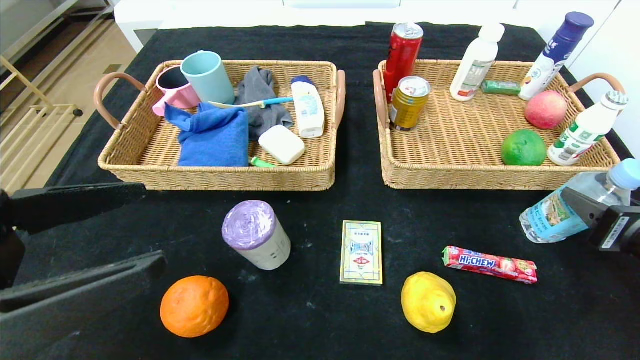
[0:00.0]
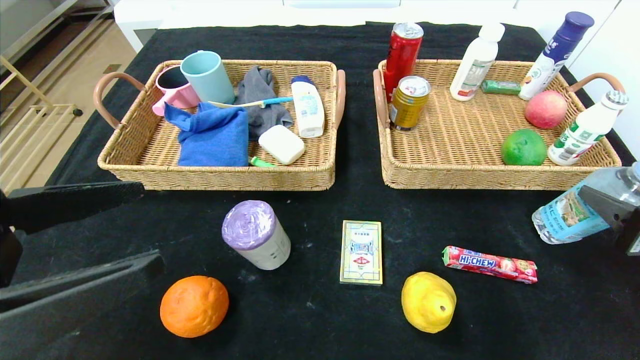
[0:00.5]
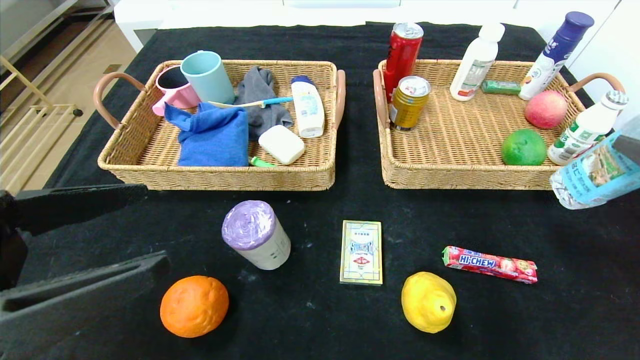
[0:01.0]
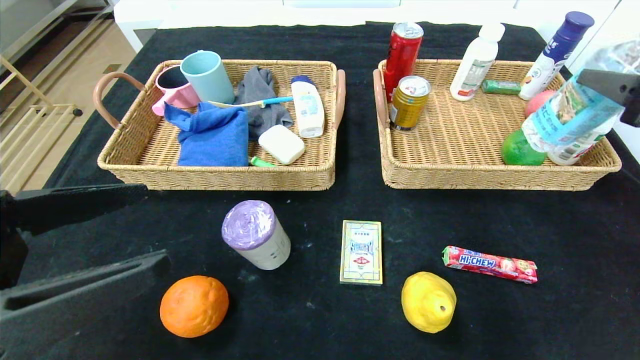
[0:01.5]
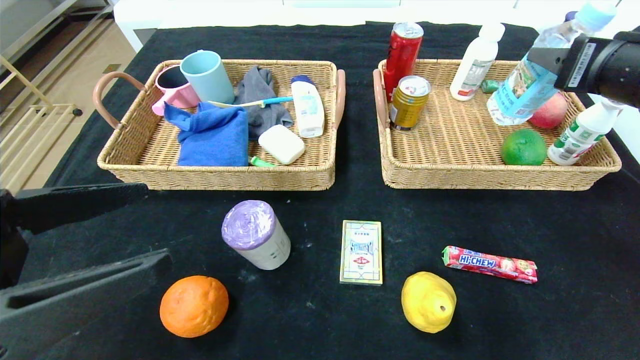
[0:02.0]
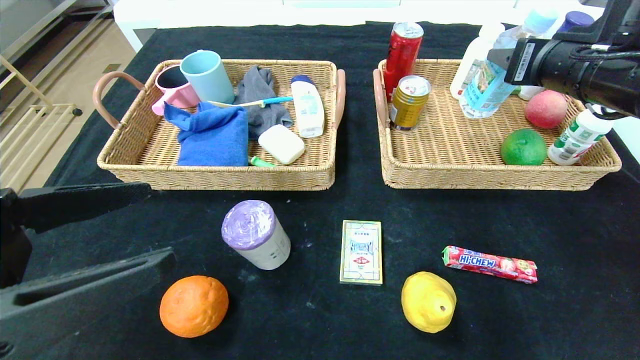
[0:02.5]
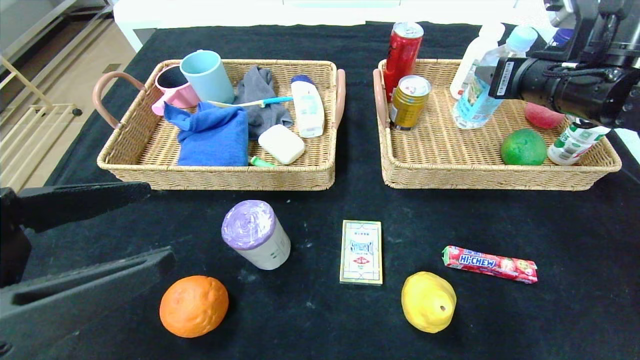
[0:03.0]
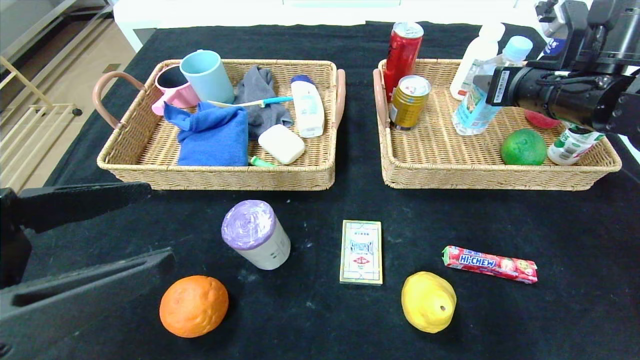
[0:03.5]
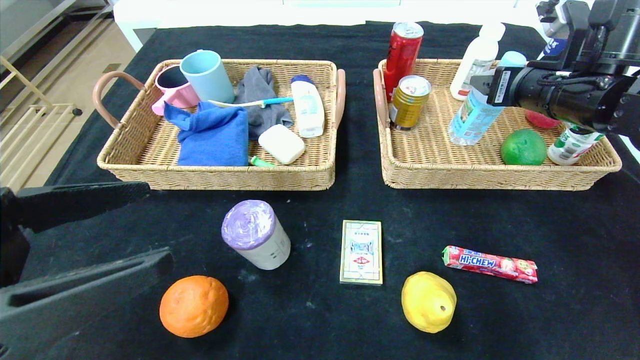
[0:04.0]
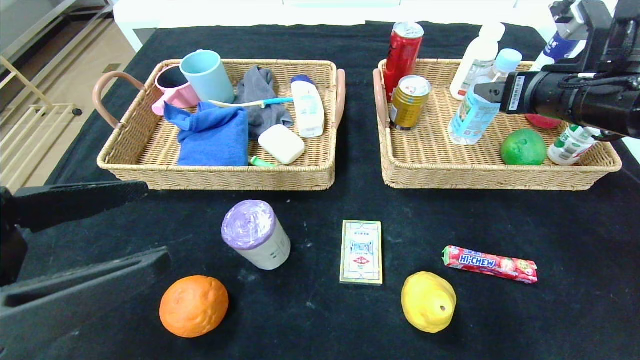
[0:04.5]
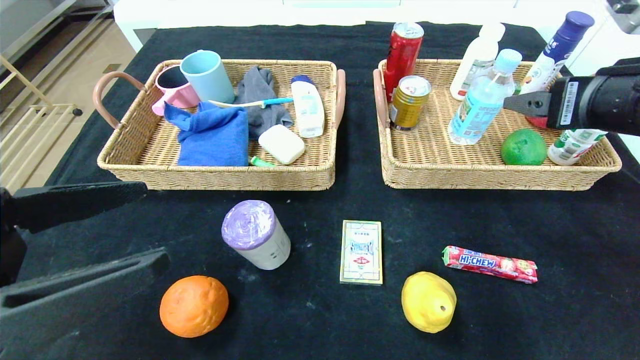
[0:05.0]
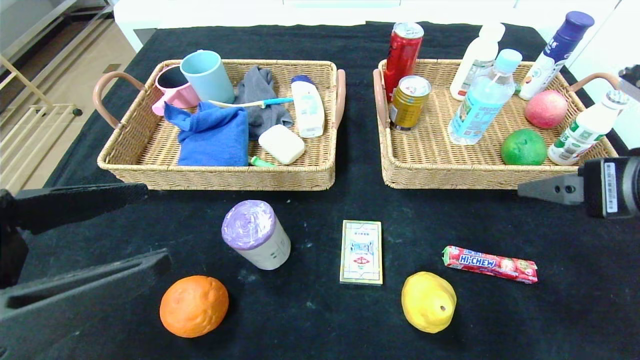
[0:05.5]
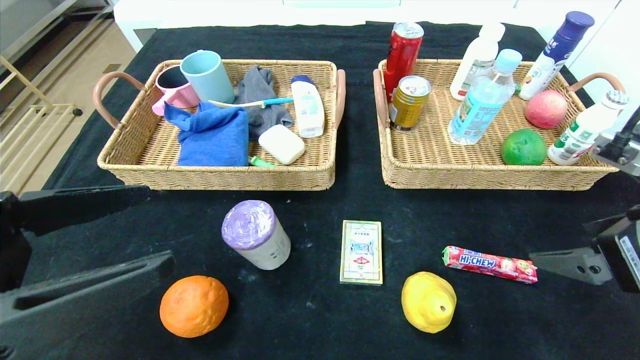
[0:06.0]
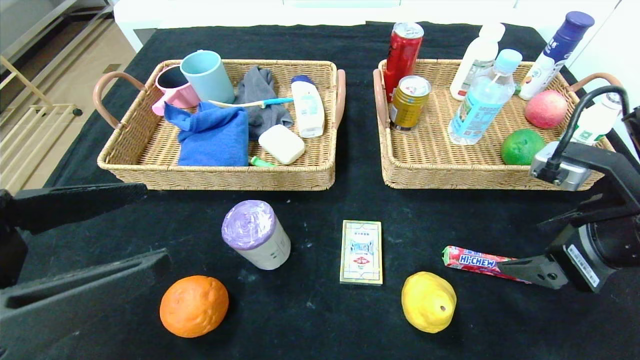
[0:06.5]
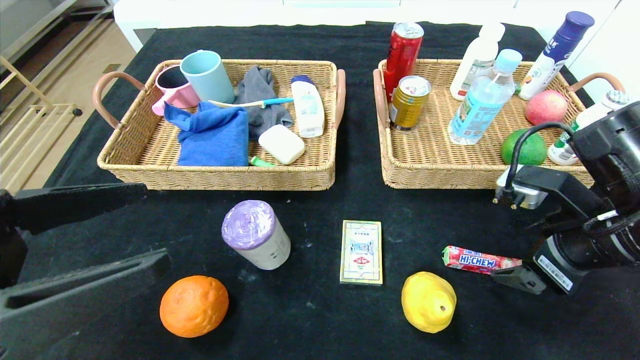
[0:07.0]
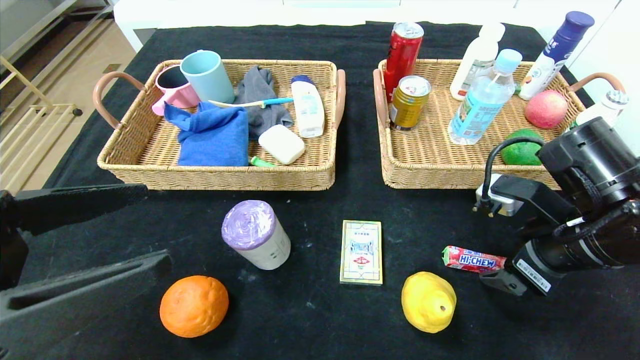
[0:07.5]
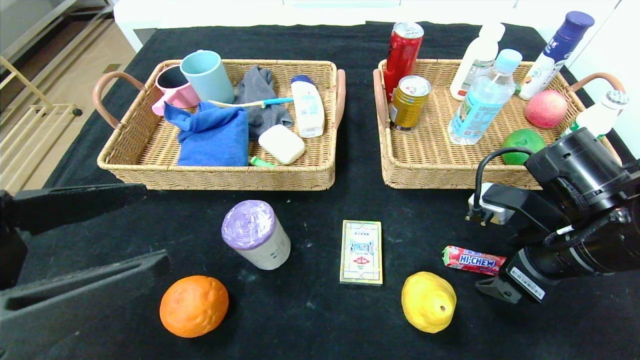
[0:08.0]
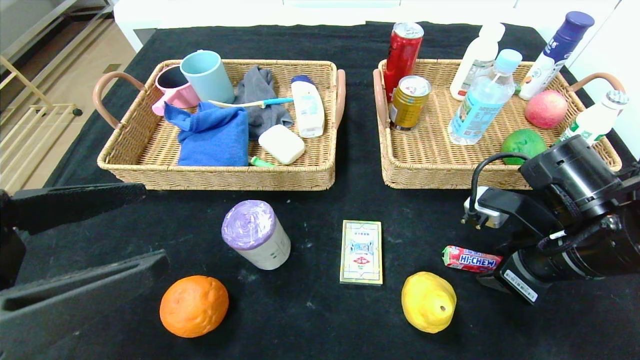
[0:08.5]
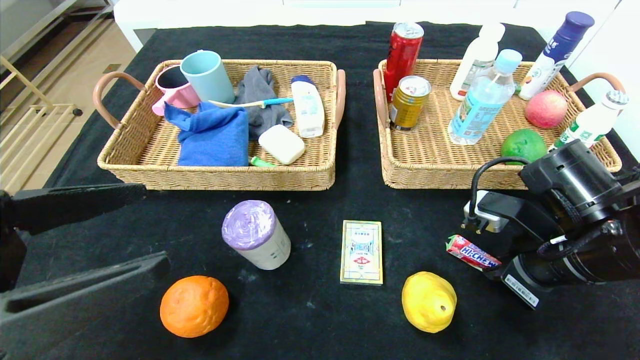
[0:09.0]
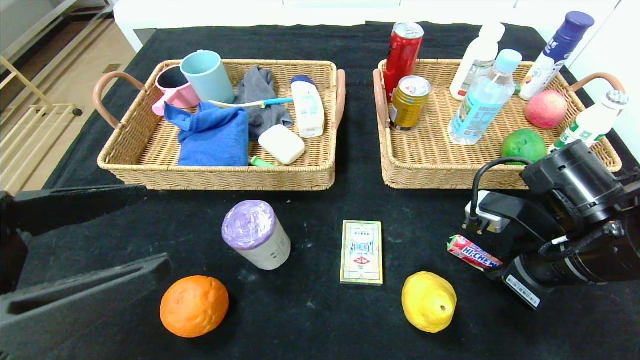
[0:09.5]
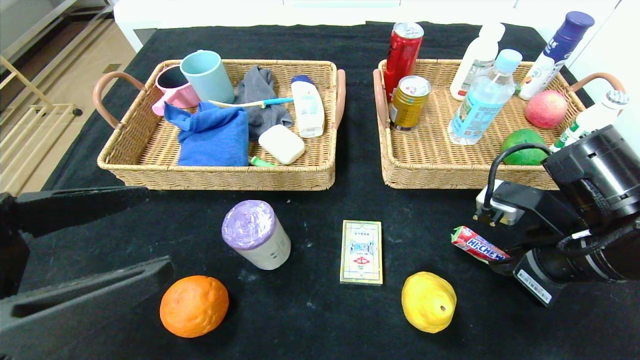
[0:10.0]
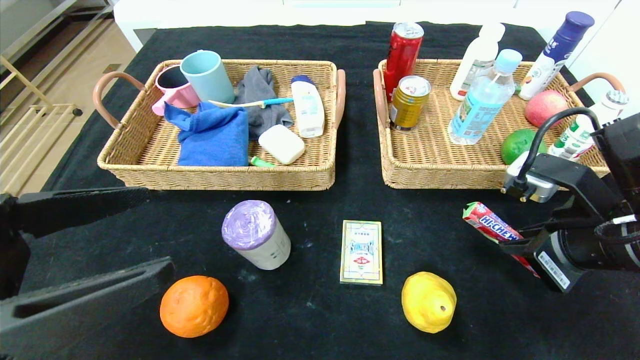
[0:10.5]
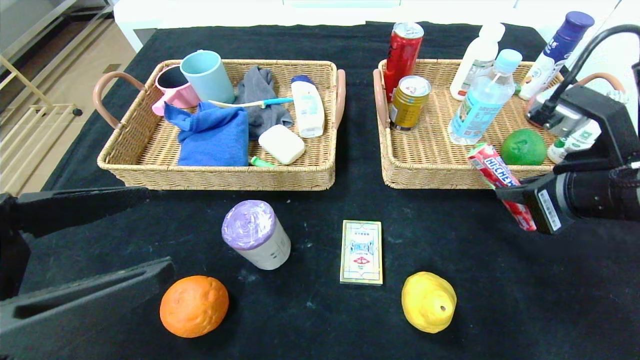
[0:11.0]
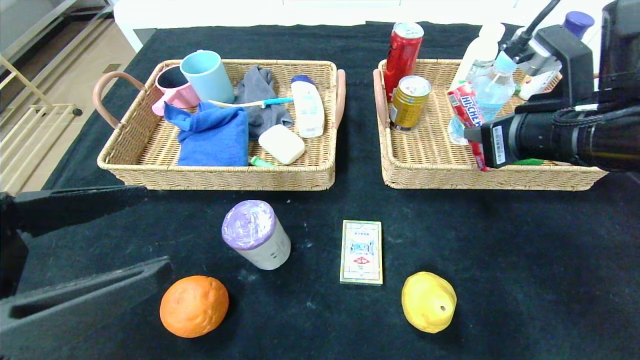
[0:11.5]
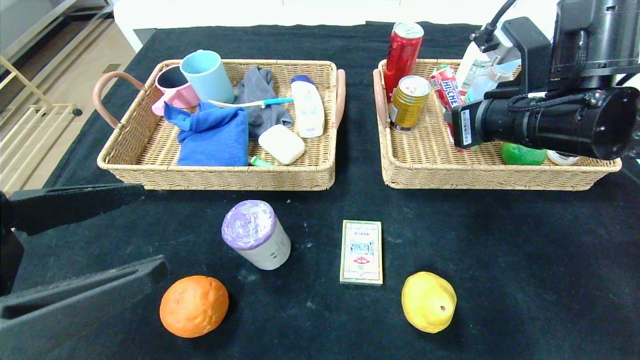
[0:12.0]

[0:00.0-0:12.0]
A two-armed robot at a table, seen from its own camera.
Step, 0:00.0 to 0:04.0: Grasp the soda water and put it in the right basket.
0:00.0 to 0:02.0: The right gripper is displaced upward and forward by approximately 15 cm.
0:02.0 to 0:04.0: The right gripper is displaced forward by some 10 cm.
0:04.0 to 0:06.0: The right gripper is displaced backward by some 20 cm.
0:06.0 to 0:08.0: The right gripper shifts roughly 10 cm forward and downward.
0:08.0 to 0:10.0: The right gripper closes.
0:10.0 to 0:12.0: The right gripper shifts approximately 10 cm upward and forward.

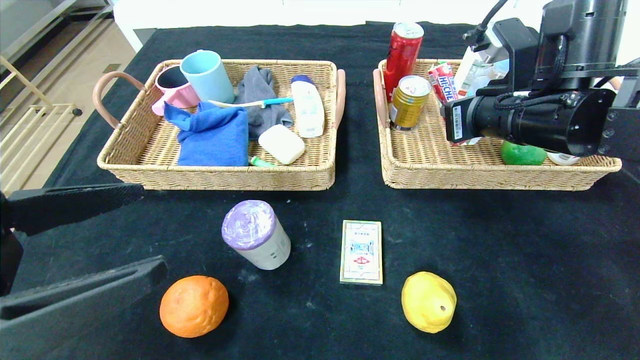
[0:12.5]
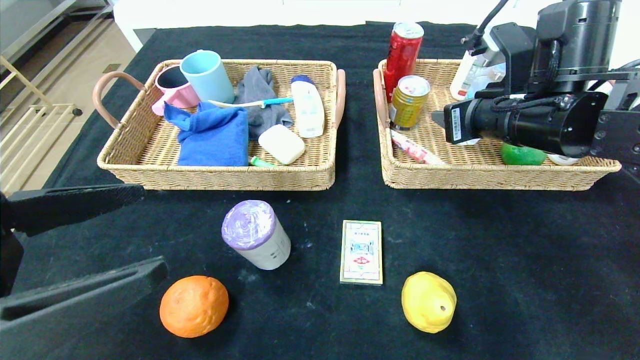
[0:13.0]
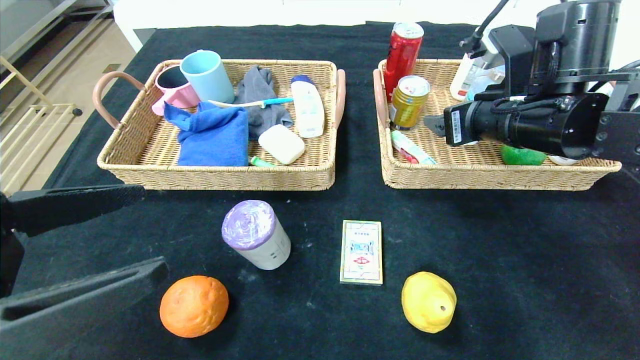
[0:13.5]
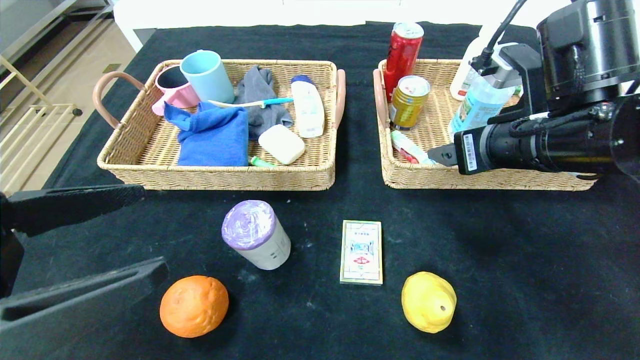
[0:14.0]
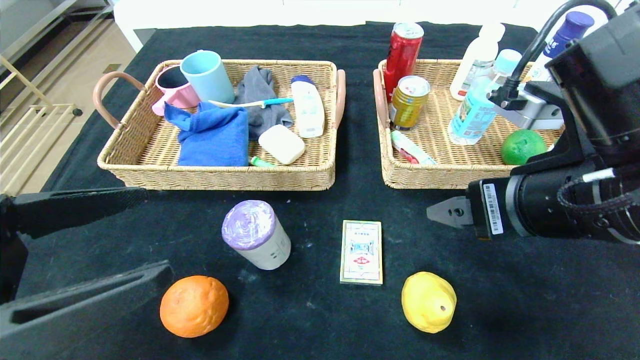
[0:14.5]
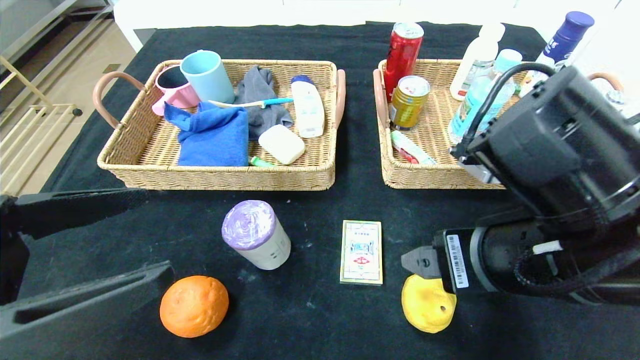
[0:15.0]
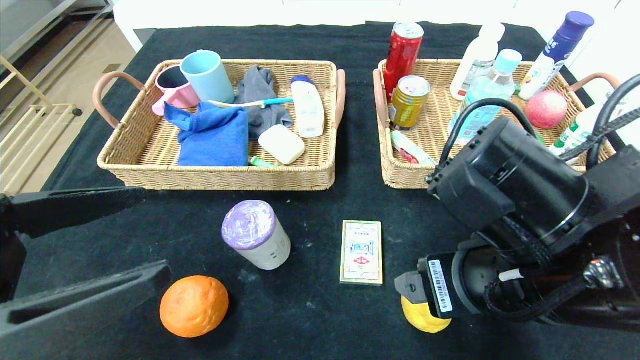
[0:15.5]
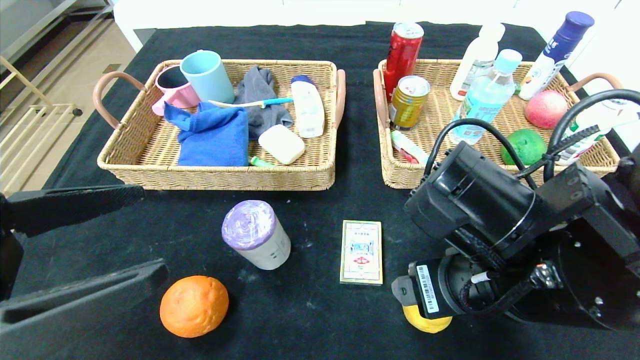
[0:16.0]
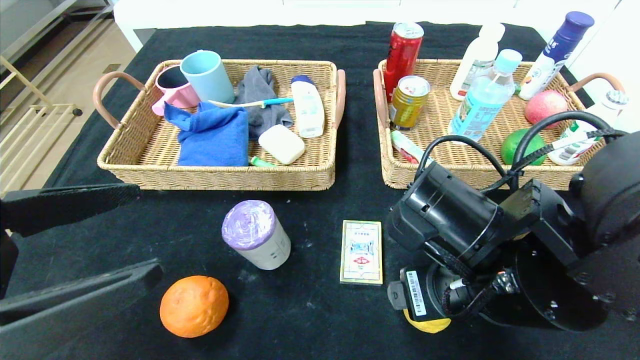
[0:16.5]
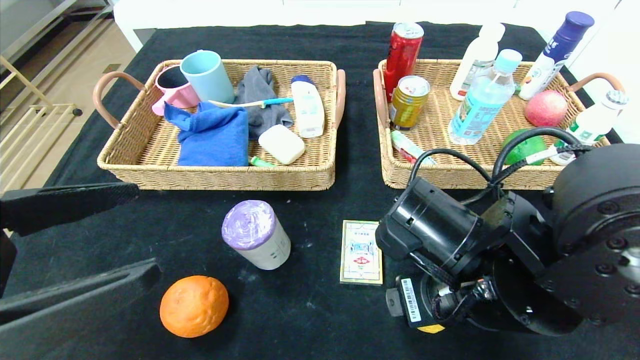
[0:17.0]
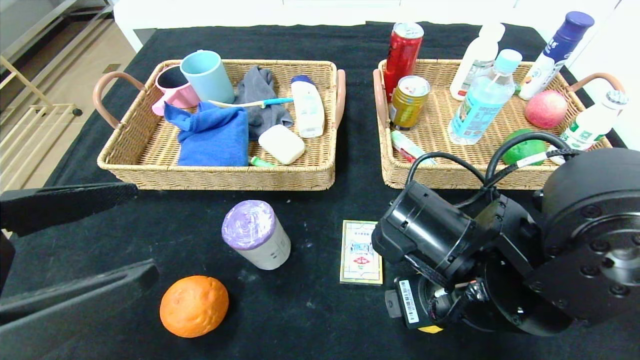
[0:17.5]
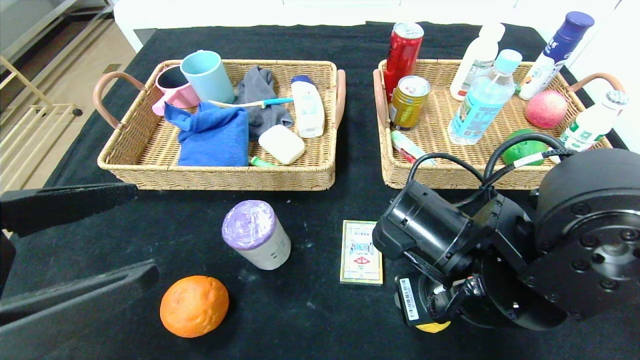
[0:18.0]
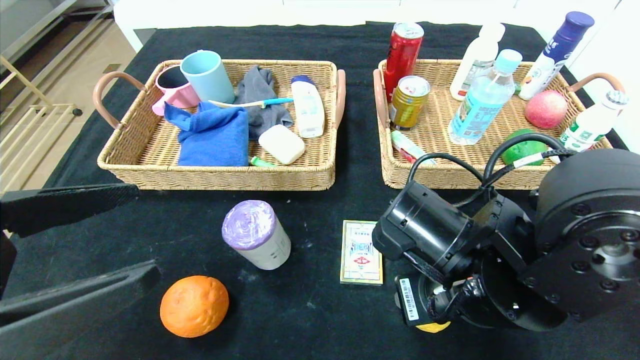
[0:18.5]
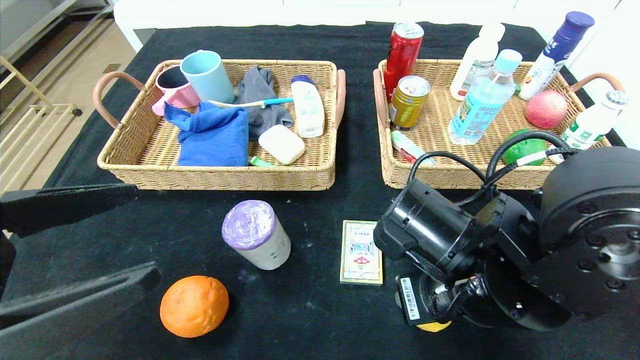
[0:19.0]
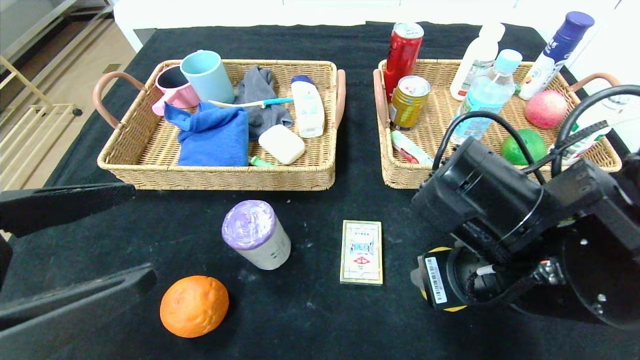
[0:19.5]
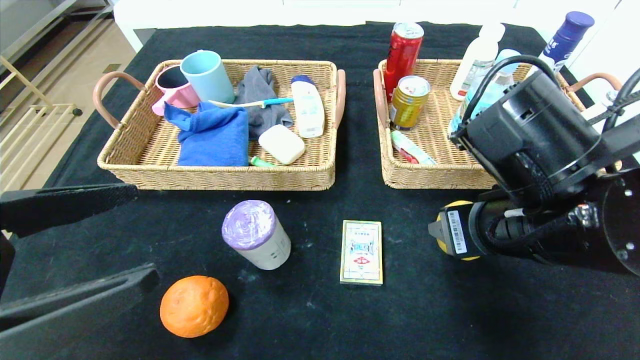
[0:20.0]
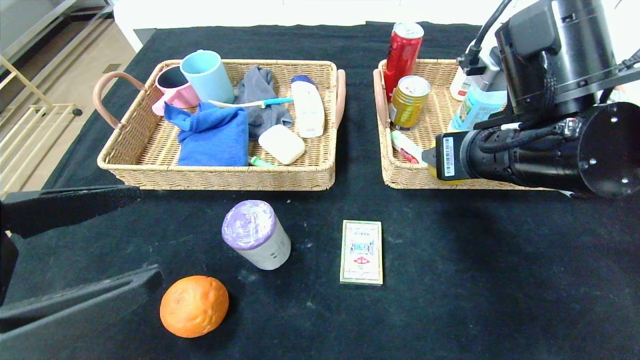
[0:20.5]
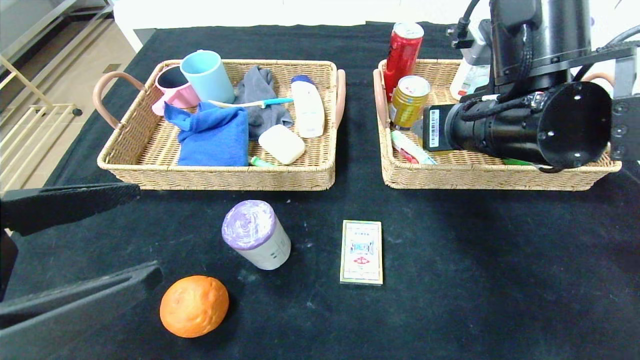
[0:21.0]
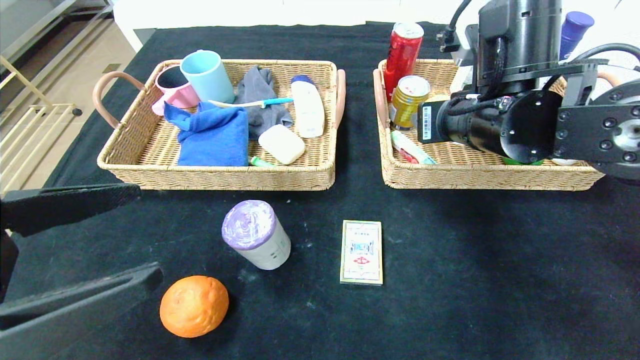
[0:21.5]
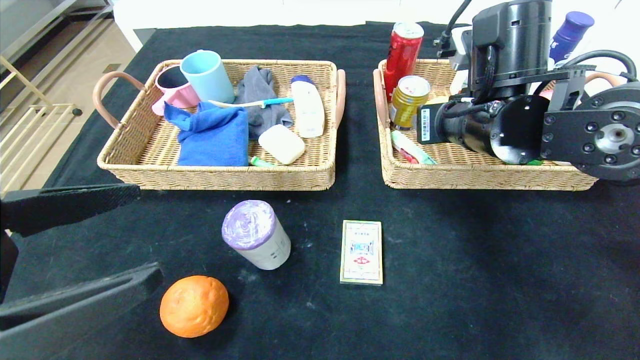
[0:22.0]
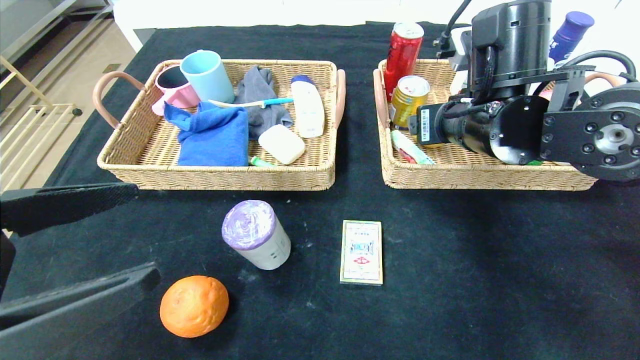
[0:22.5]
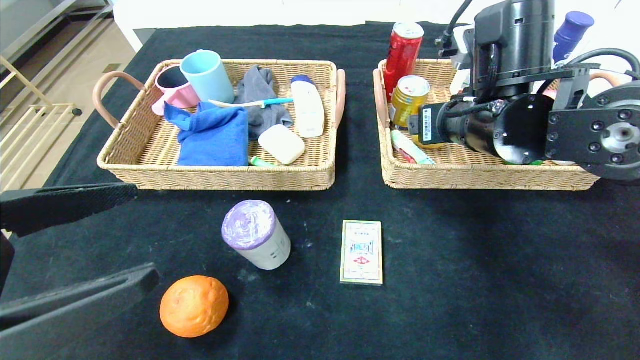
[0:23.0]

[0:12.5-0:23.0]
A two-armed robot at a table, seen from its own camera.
Step, 0:13.5 to 0:22.0: Grasp the pear and put it in the right basket.
0:12.5 to 0:14.5: The right gripper shifts some 15 cm backward, and opens up.
0:14.5 to 0:16.5: The right gripper travels downward and to the left by some 10 cm.
0:16.5 to 0:19.0: The right gripper closes.
0:19.0 to 0:21.0: The right gripper goes about 15 cm upward and forward.
0:21.0 to 0:23.0: The grippers stay close to where they were, moving slightly.
